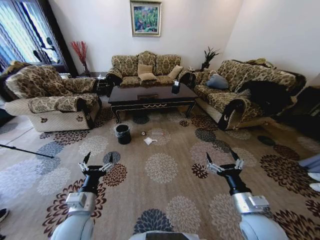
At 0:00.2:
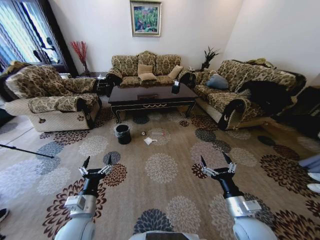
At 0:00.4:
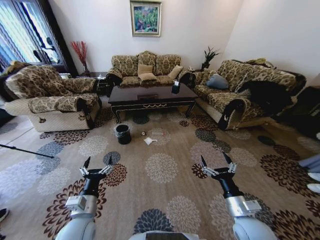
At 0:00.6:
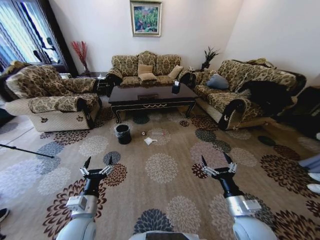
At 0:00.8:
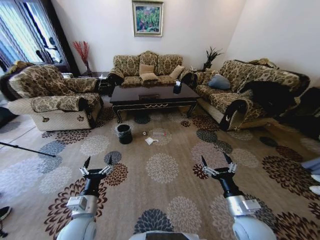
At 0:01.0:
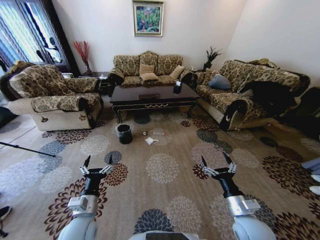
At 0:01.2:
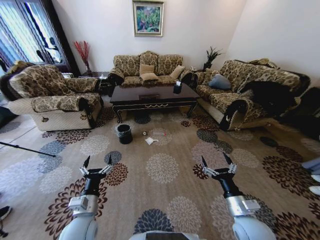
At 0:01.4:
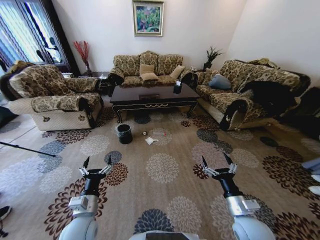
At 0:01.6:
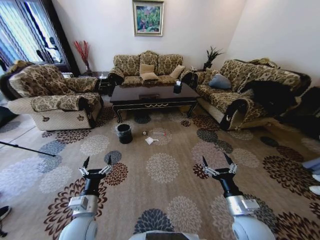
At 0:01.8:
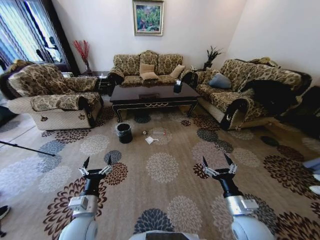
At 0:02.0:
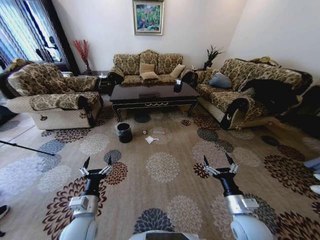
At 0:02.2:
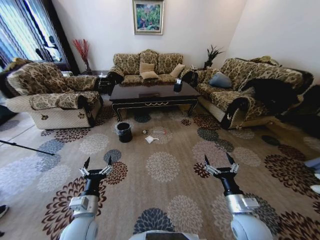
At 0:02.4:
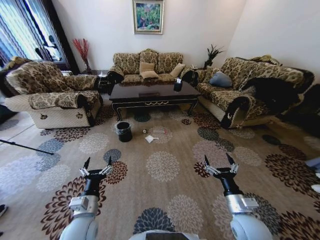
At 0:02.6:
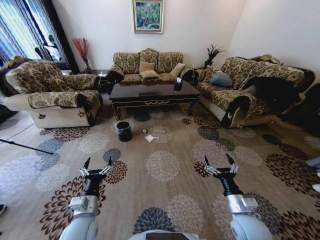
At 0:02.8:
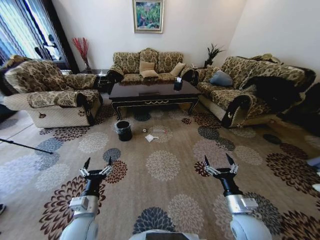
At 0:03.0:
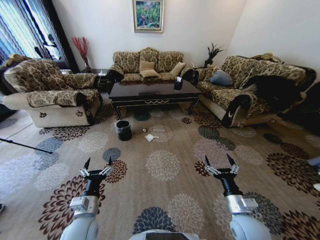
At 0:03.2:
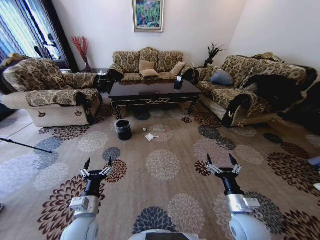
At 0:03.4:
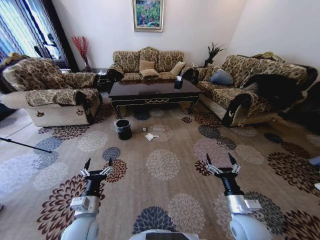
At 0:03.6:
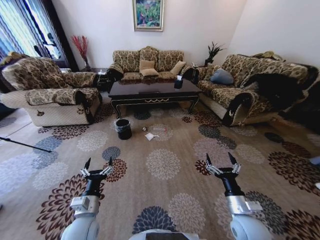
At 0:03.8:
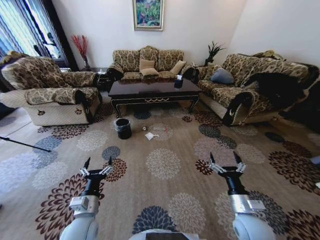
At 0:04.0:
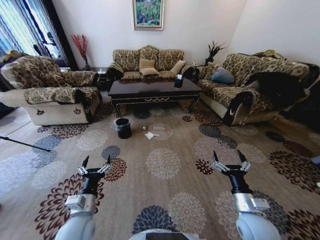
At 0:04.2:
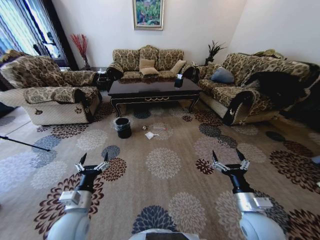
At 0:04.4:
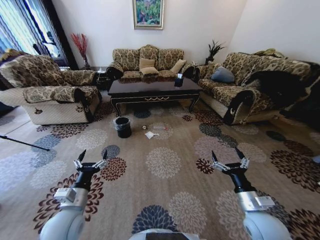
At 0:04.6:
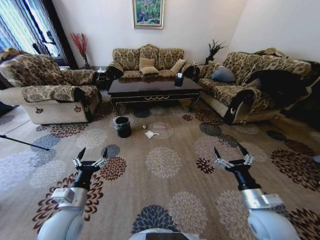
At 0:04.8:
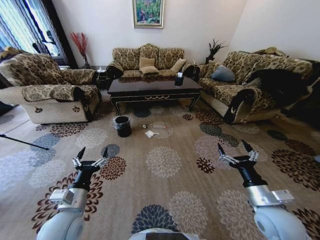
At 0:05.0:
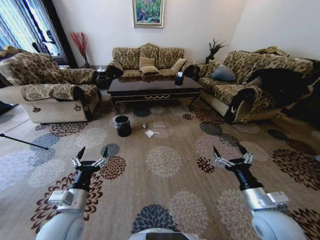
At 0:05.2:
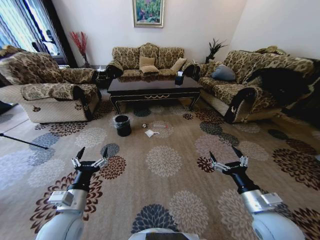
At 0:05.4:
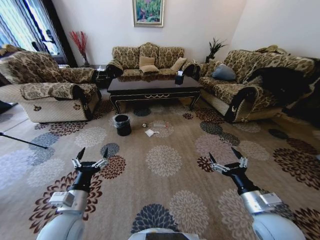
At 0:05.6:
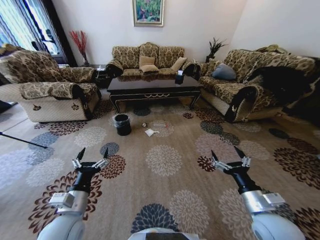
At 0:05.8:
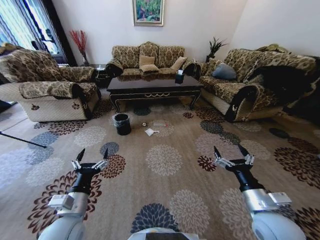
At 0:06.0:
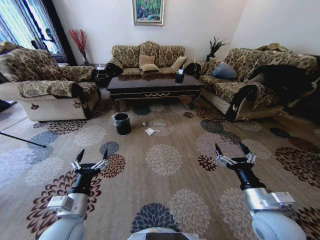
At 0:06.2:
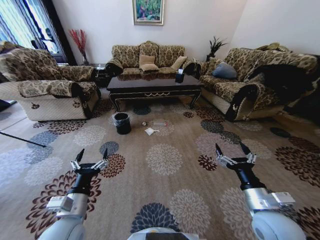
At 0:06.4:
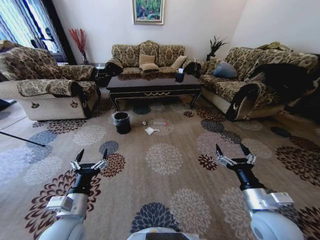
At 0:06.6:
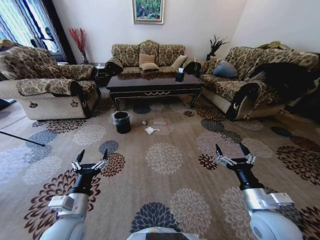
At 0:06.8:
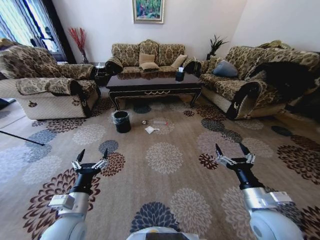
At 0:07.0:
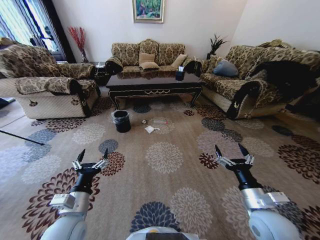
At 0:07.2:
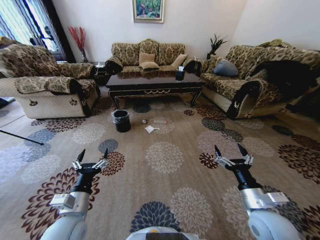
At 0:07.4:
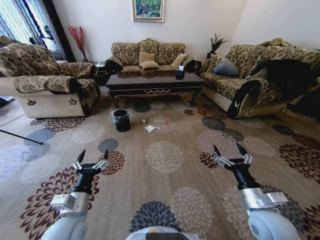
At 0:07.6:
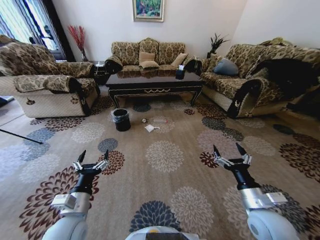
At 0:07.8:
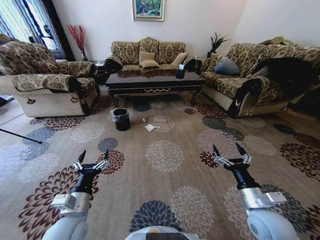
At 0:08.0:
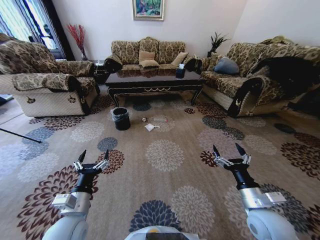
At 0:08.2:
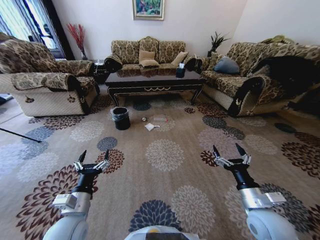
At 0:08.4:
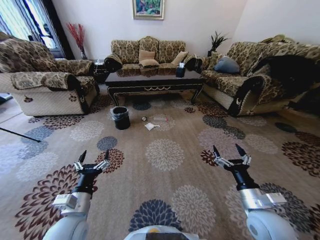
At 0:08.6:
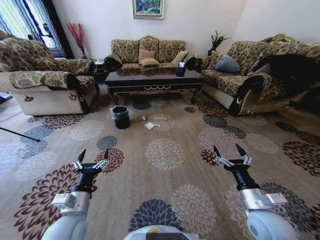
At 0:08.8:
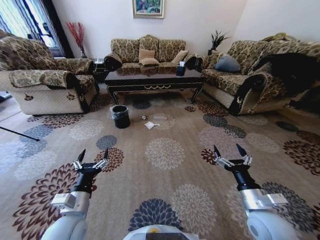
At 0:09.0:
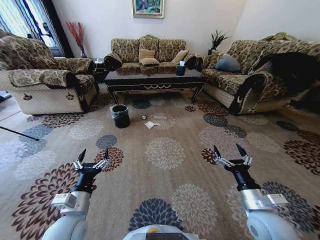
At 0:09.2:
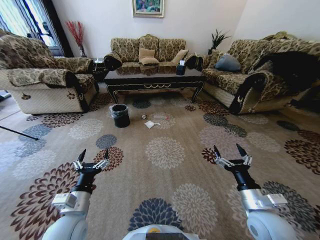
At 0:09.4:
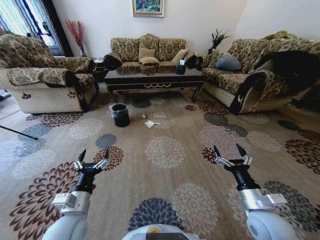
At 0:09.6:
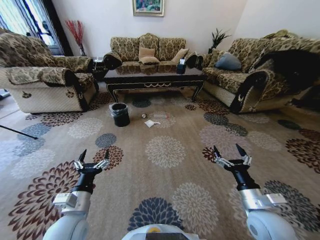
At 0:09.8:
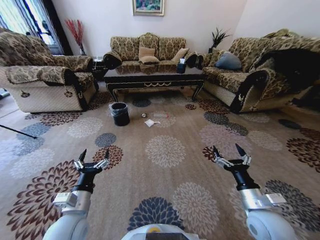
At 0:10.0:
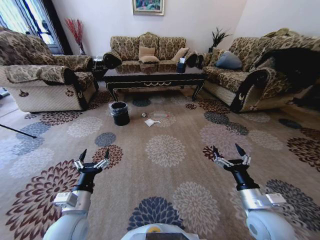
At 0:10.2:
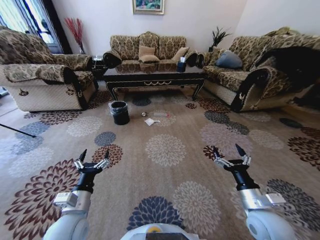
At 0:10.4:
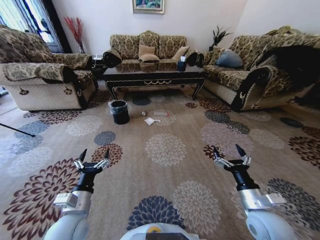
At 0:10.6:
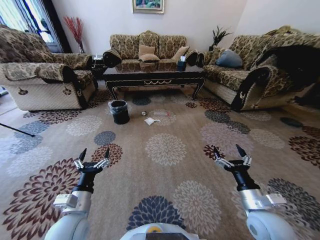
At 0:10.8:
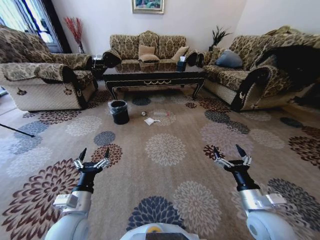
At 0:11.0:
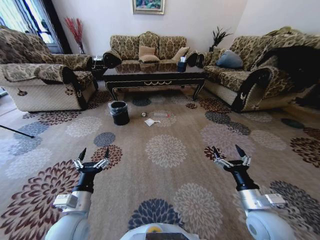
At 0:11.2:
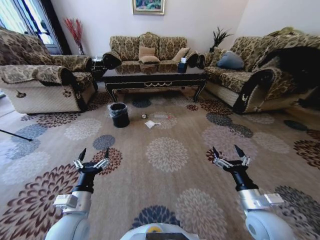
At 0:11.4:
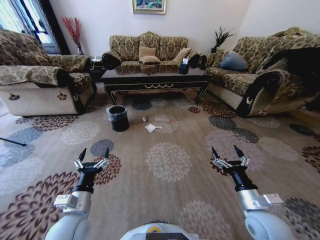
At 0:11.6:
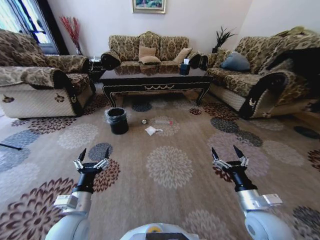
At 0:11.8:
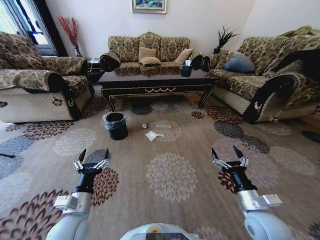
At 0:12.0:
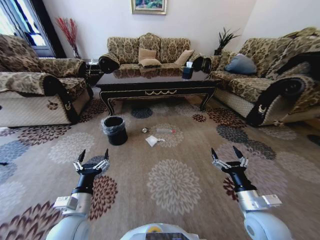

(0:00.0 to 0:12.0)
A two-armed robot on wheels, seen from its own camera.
Task of the whole recording: Move to the front of the table and pick up the trash from the floor, then place it into the trash bin.
0:03.0 - 0:04.4: The left gripper shifts by roughly 5 cm.
0:04.4 - 0:06.0: The right gripper heads upward, covering approximately 5 cm.

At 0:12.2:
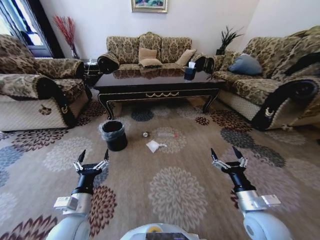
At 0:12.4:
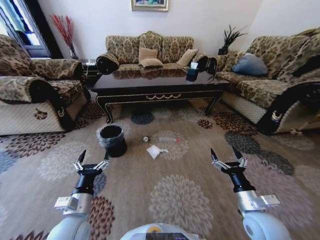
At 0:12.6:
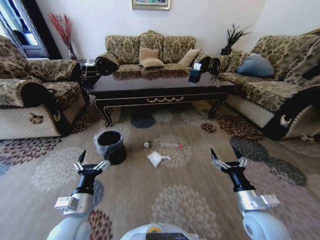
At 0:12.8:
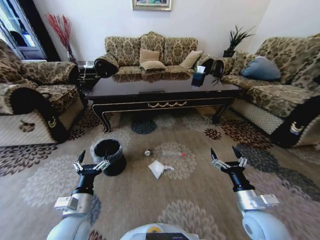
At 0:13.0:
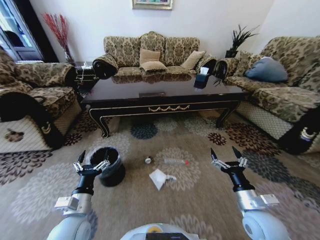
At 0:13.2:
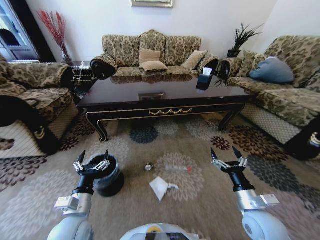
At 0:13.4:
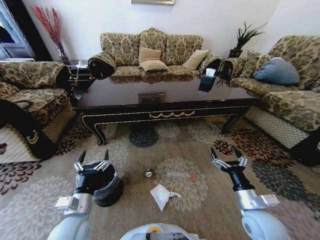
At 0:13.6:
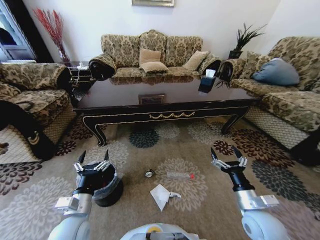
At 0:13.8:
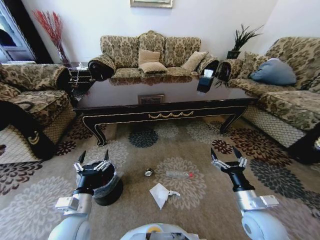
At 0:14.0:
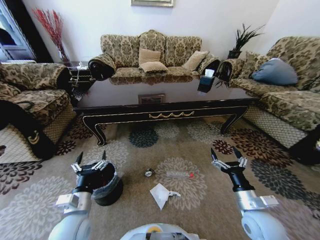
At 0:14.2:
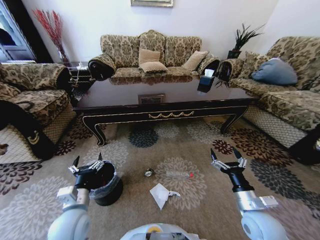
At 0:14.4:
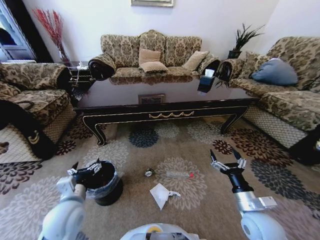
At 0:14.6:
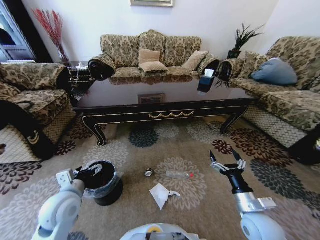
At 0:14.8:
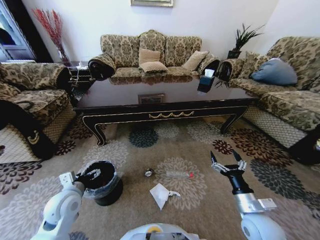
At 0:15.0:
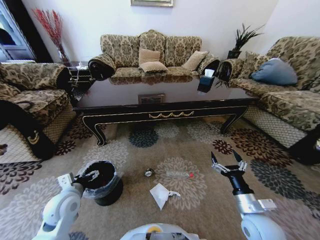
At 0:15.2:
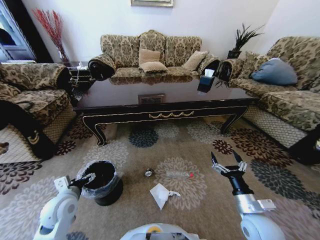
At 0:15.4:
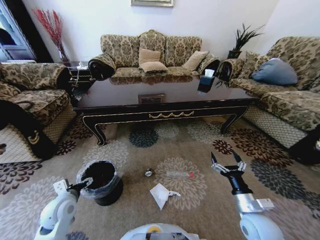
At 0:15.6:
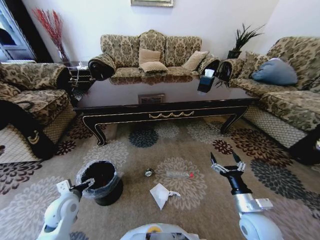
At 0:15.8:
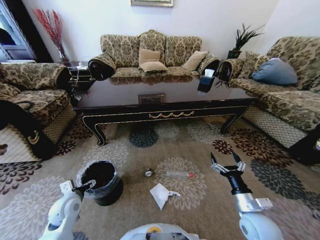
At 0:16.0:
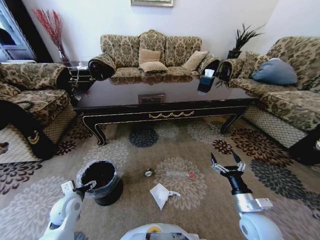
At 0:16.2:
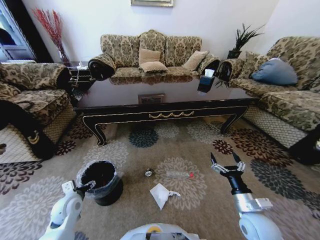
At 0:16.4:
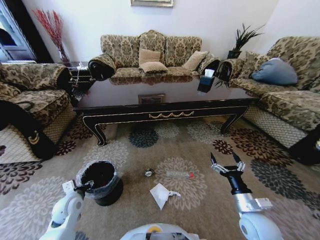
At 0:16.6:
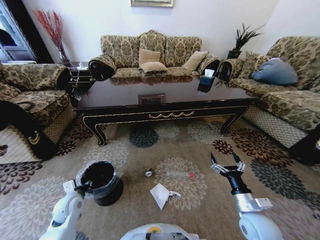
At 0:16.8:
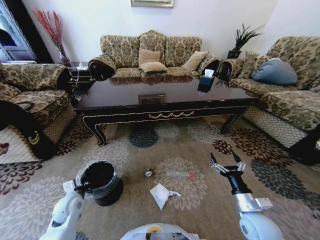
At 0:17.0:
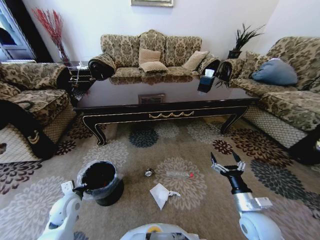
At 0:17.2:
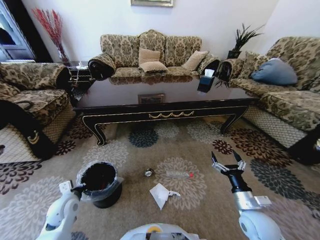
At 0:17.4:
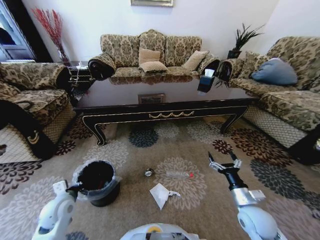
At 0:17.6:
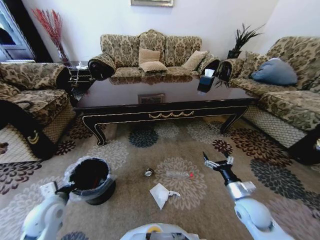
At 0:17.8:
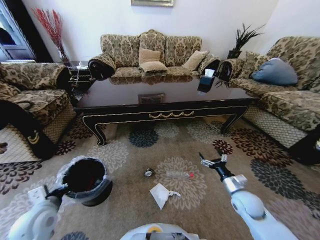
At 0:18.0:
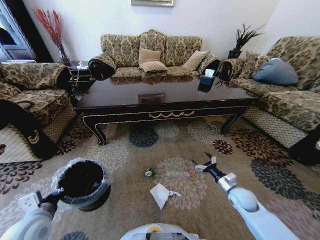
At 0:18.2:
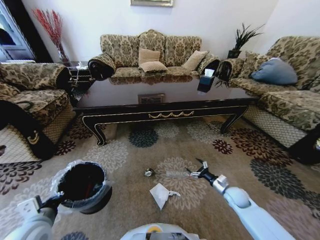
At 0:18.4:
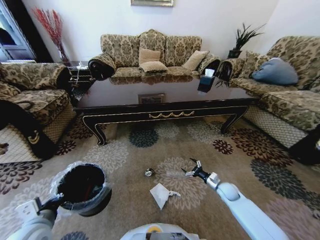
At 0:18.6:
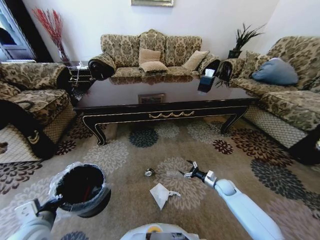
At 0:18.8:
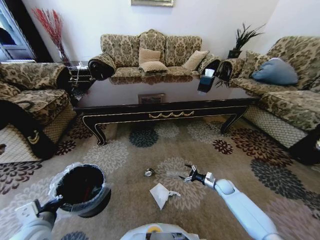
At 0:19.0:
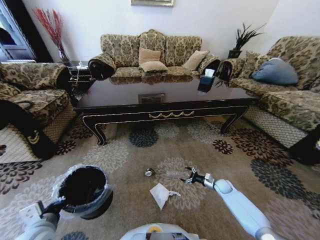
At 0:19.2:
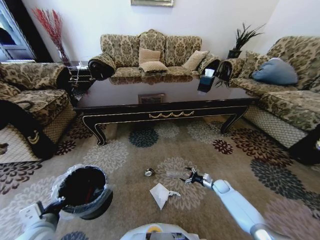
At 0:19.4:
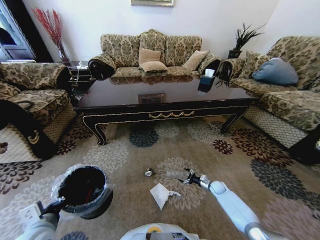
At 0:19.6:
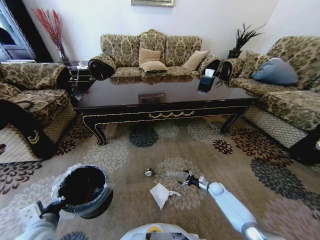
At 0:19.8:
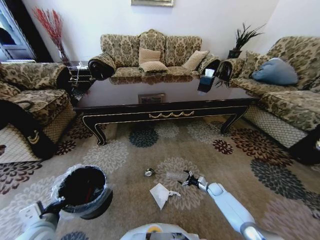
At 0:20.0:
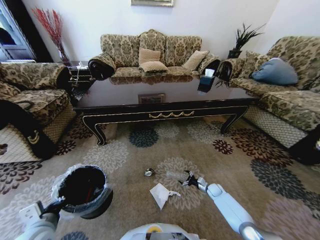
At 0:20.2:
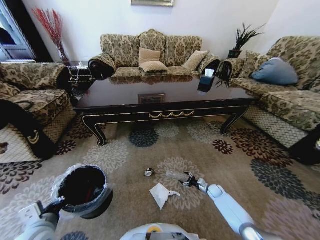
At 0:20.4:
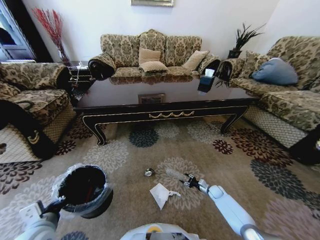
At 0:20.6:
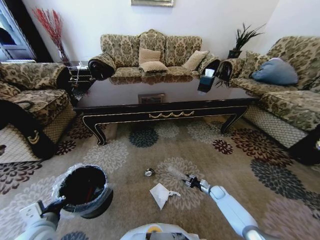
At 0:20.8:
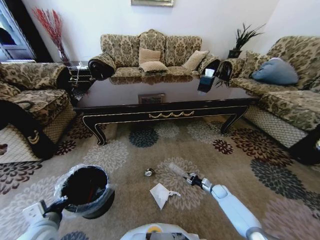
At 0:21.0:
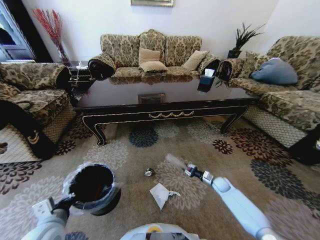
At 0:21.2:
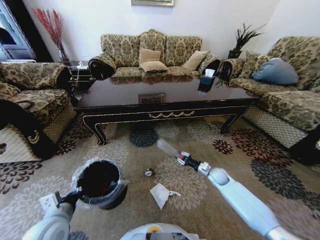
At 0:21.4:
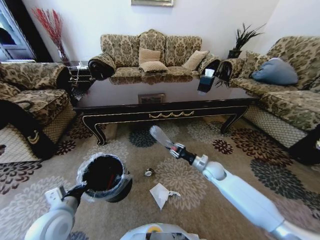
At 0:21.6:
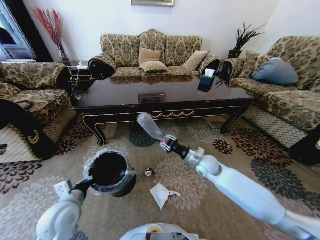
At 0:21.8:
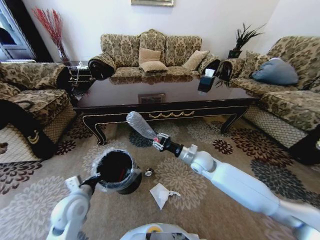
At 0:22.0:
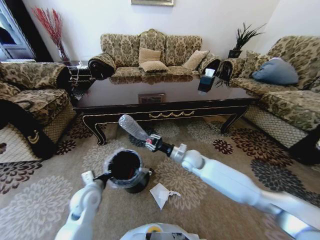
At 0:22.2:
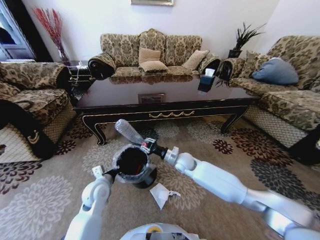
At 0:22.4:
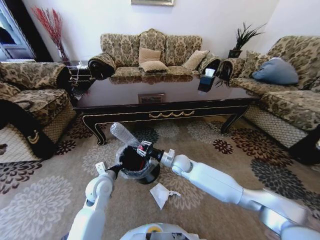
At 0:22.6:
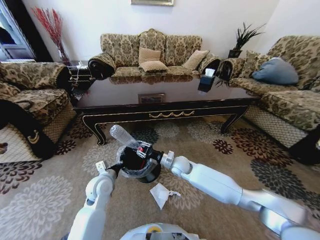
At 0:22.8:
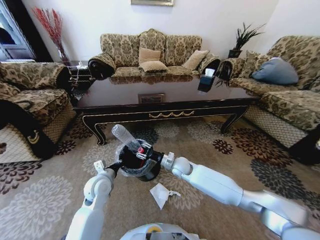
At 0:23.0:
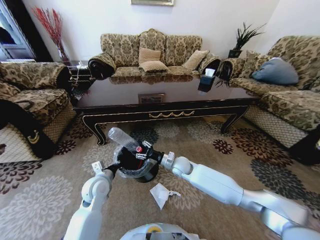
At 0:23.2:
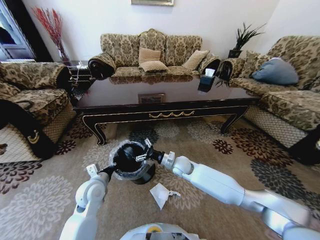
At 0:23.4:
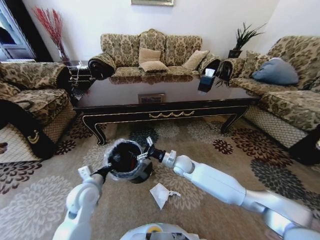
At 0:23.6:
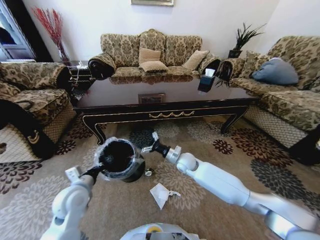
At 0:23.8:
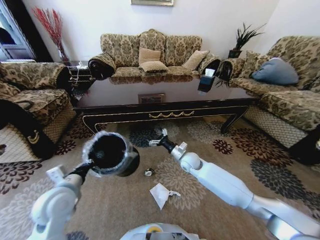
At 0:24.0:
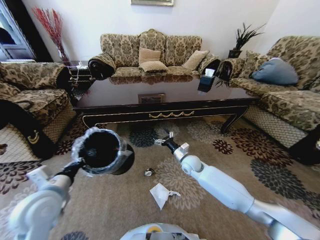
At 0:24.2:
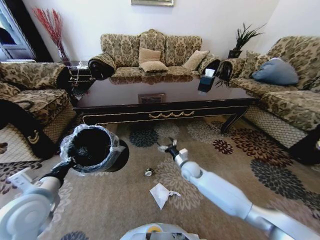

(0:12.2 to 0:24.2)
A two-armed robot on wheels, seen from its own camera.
Task of the whole recording: Move to the front of the table and pick up the trash from the floor, then place it into the trash bin.
0:13.8 - 0:15.2: The left gripper moves to the left and forward, some 10 cm.
0:15.2 - 0:16.6: The left gripper heads downward, covering approximately 5 cm, and closes up.
0:16.6 - 0:18.2: The right gripper shifts about 15 cm forward, downward and to the right. The left gripper shifts some 15 cm upward and backward, and closes up.
0:18.2 - 0:19.8: The right gripper goes roughly 15 cm downward and forward.
0:19.8 - 0:21.2: The right gripper moves upward, about 15 cm, and closes up.
0:21.2 - 0:22.6: The right gripper heads to the left, covering approximately 25 cm, while the left gripper travels forward and to the right by some 15 cm.
0:22.6 - 0:24.2: The right gripper shifts about 5 cm to the right, and opens. The left gripper is displaced upward, to the left and backward by about 20 cm.
